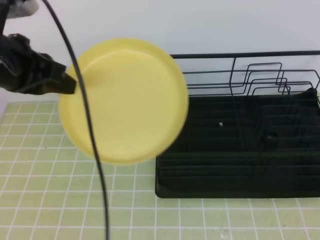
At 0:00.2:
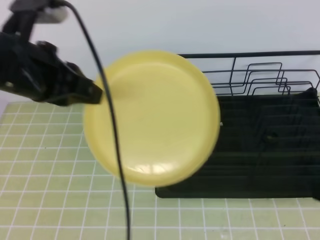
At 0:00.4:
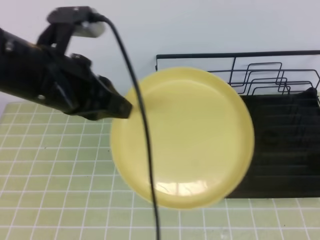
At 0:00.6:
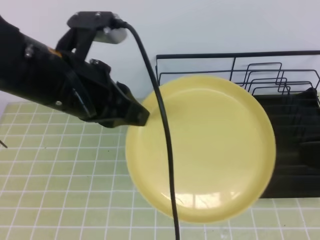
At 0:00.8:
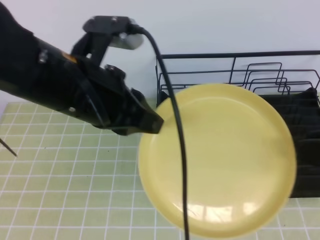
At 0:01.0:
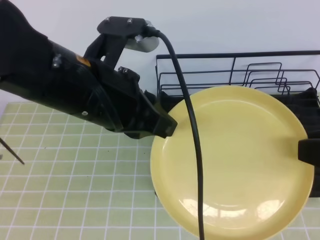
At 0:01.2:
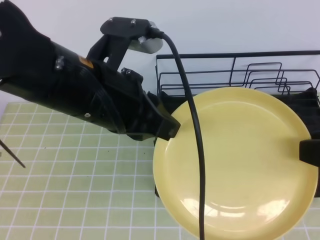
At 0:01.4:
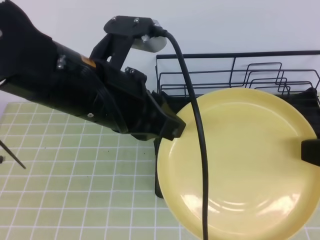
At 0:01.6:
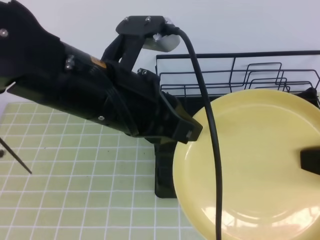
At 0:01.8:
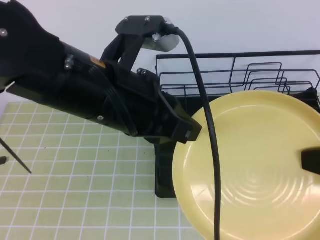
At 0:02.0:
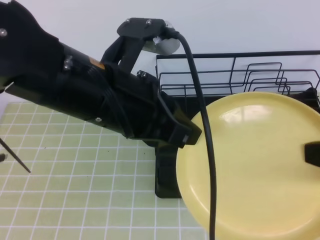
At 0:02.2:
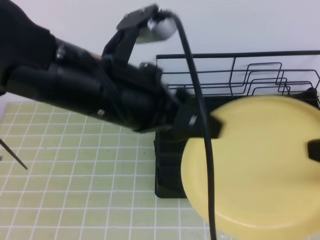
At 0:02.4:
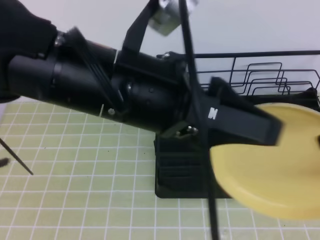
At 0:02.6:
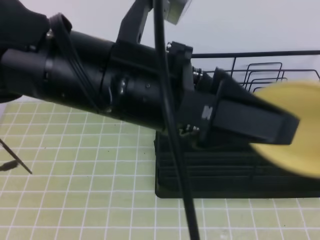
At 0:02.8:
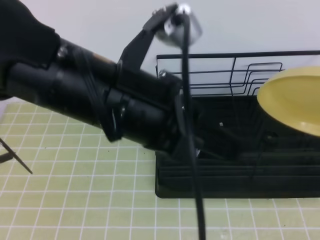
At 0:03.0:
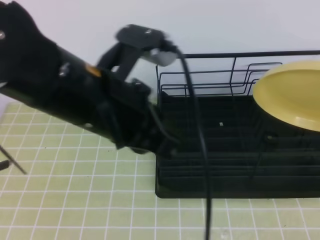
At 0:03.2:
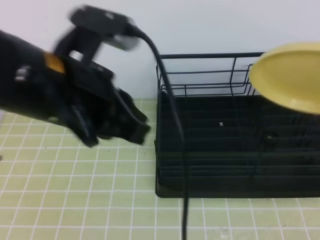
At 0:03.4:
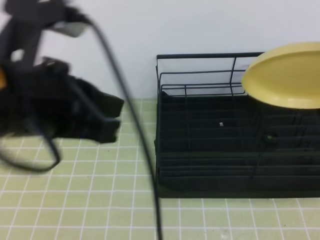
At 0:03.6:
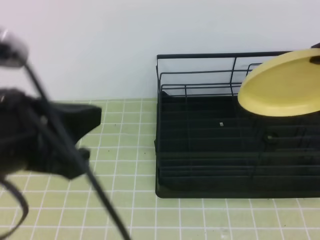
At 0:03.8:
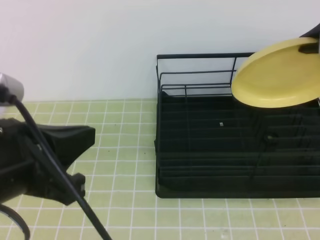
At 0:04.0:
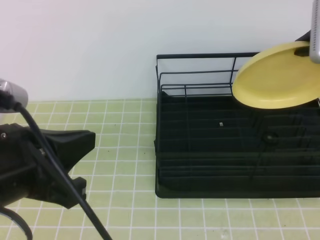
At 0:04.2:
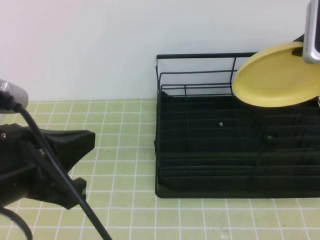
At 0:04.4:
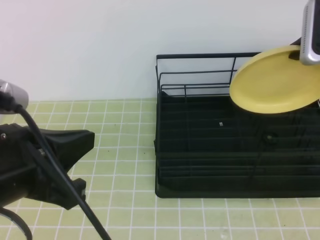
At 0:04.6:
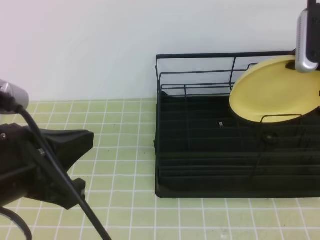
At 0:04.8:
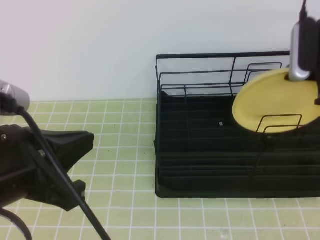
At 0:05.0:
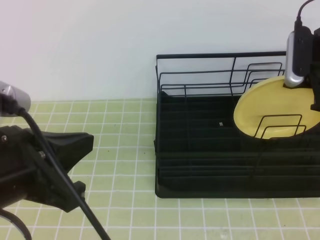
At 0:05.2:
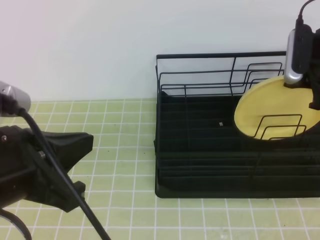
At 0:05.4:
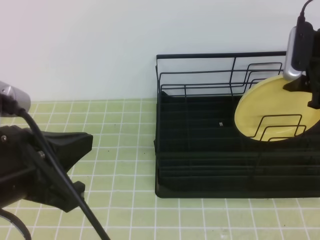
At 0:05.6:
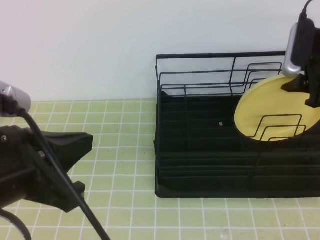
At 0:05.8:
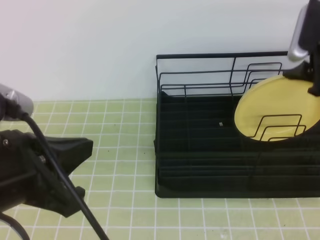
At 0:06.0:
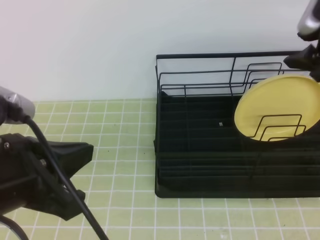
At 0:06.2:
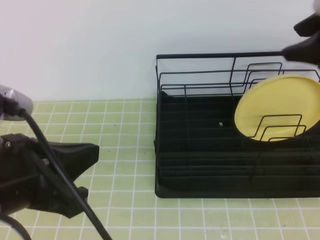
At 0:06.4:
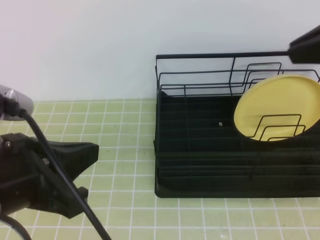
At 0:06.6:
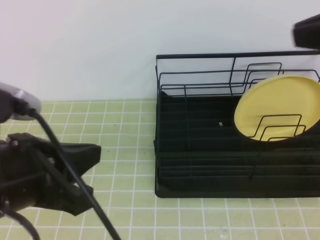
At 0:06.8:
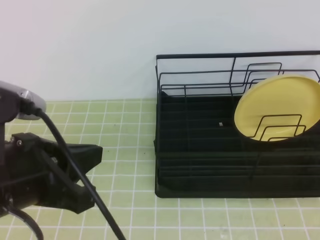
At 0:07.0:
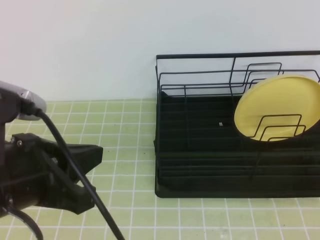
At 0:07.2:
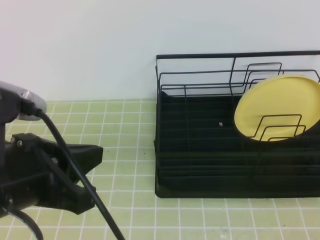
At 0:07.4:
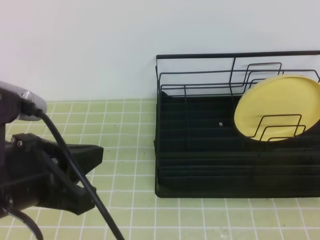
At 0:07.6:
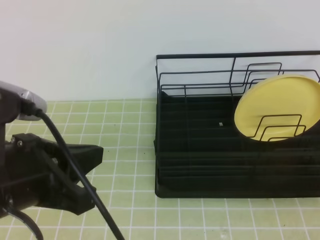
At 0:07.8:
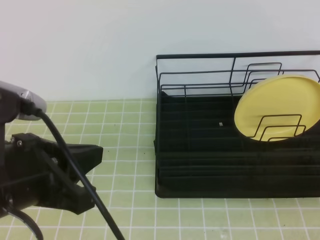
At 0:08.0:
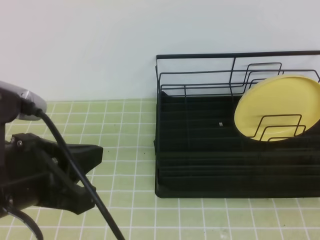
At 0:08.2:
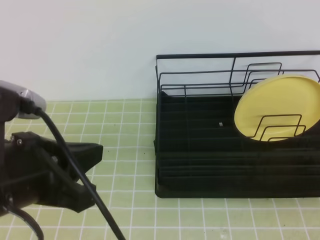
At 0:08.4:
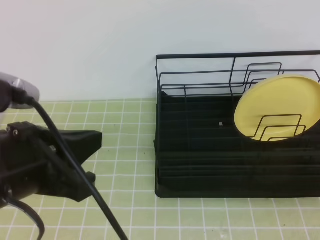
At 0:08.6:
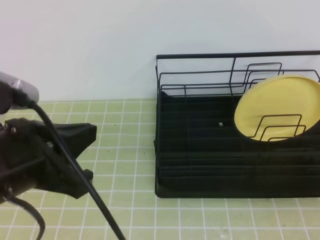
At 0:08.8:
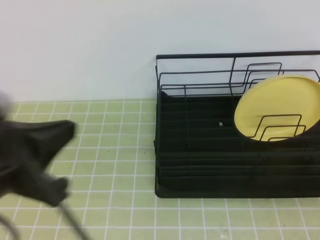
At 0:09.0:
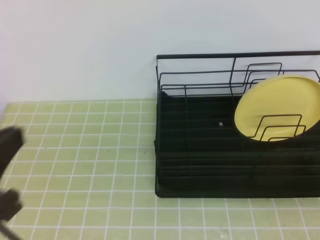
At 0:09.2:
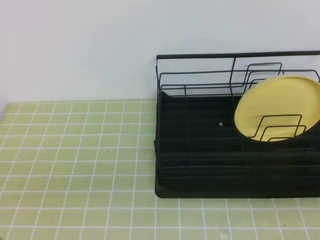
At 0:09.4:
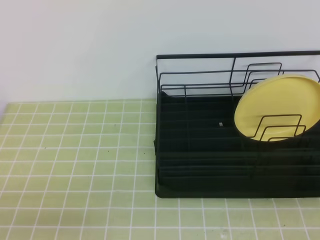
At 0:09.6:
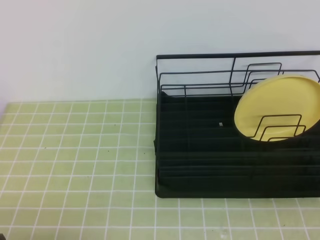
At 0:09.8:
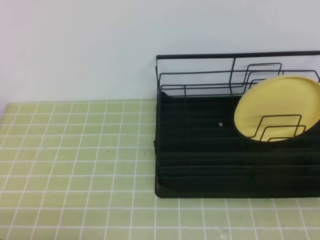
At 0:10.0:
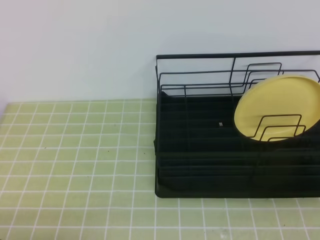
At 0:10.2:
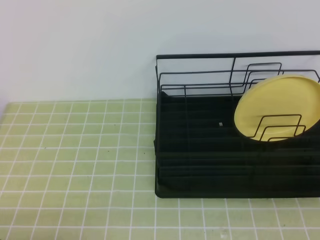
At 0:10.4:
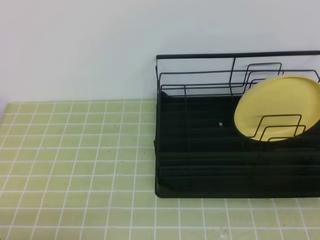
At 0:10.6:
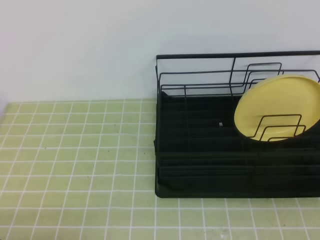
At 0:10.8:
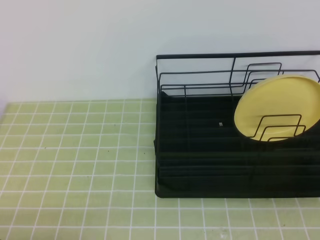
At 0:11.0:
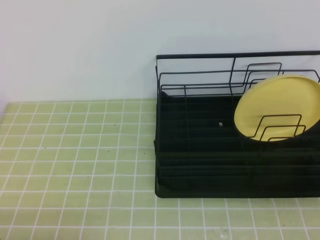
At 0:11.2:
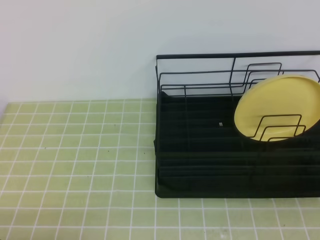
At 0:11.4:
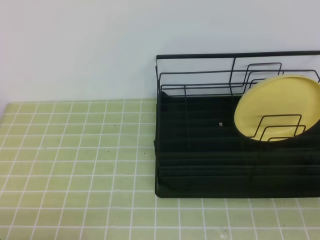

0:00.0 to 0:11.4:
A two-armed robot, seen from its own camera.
Step, 0:00.6 to 0:03.2: Right place it at the front of the shelf.
0:00.0 to 0:01.4: The left gripper goes roughly 15 cm to the right and backward, while the right gripper shifts by roughly 5 cm, and opens.
0:01.4 to 0:02.8: The left gripper opens up. Meanwhile the right gripper moves some 5 cm, and closes up.
0:02.8 to 0:04.2: The right gripper travels forward by some 15 cm. Meanwhile the left gripper heads to the left and backward, covering about 15 cm, and closes.
0:04.2 to 0:05.6: The right gripper is displaced downward by approximately 5 cm, and opens up.
0:05.6 to 0:07.2: The right gripper moves backward, approximately 30 cm, and closes its fingers.
0:08.6 to 0:10.0: The left gripper shifts roughly 20 cm downward, to the left and backward.

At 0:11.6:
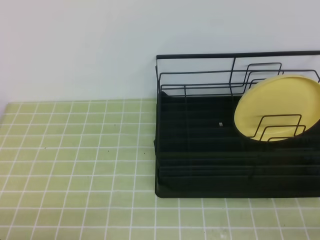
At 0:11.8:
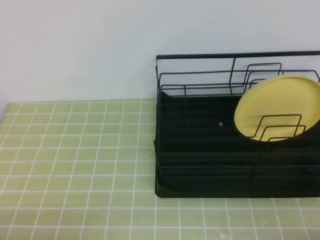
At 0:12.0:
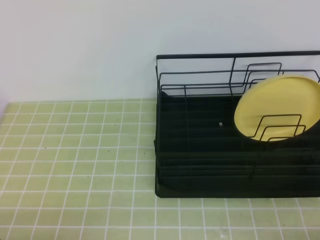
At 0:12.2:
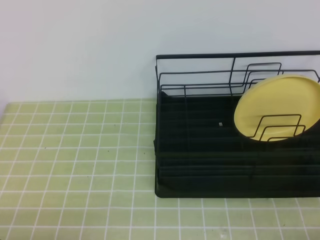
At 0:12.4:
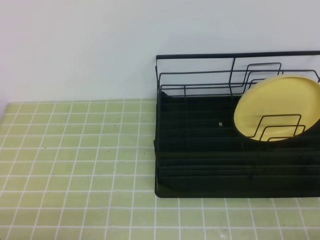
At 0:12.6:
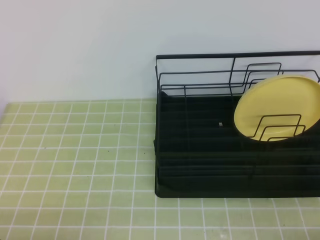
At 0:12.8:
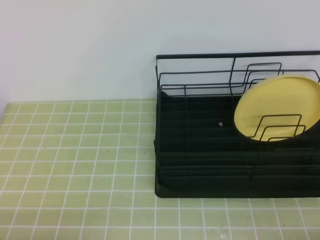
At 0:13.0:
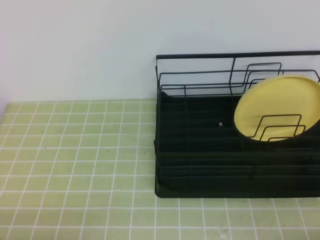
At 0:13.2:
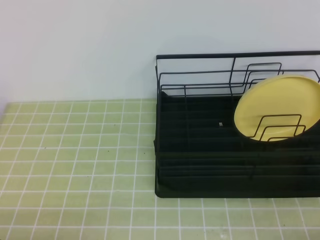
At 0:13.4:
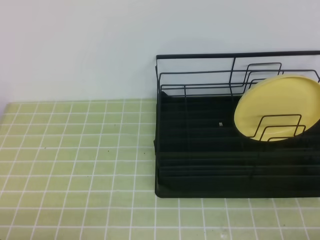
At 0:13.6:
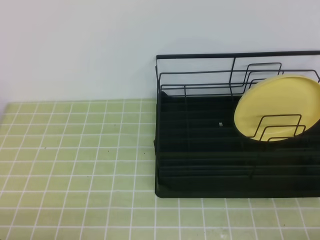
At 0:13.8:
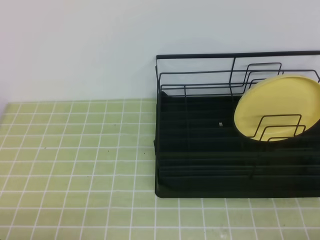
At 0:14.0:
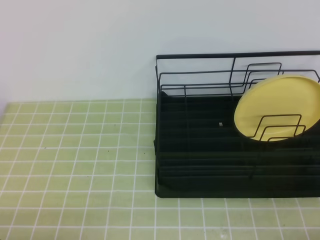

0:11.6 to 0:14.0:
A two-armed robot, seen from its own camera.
0:12.8 to 0:14.0: Neither gripper changes place.
